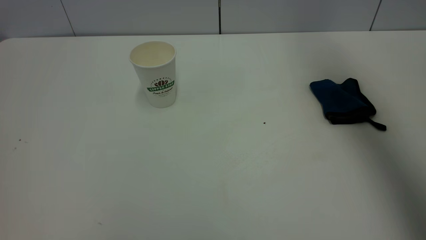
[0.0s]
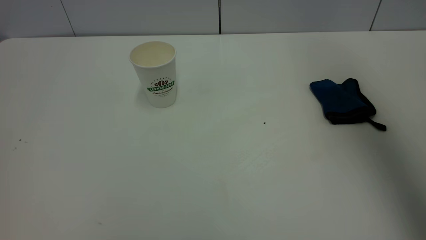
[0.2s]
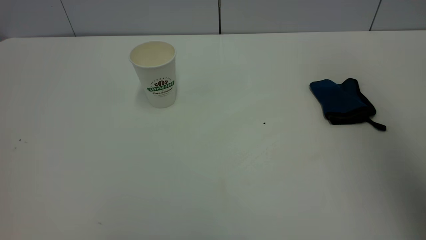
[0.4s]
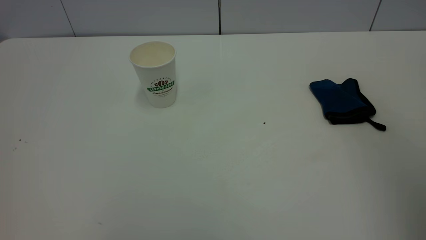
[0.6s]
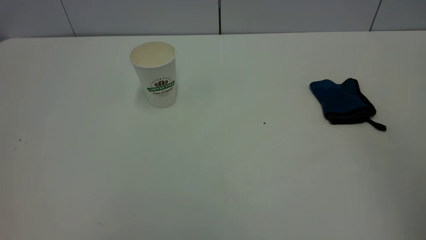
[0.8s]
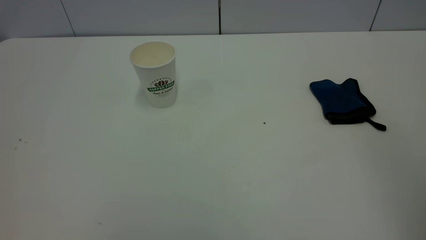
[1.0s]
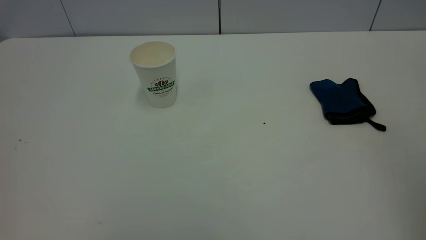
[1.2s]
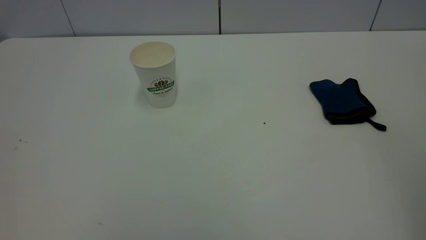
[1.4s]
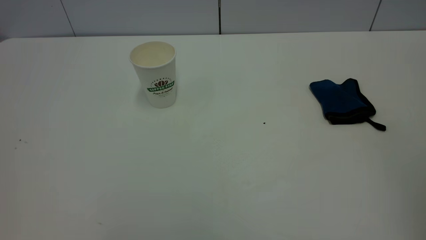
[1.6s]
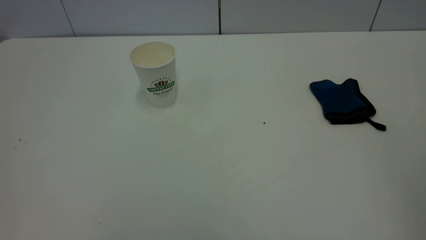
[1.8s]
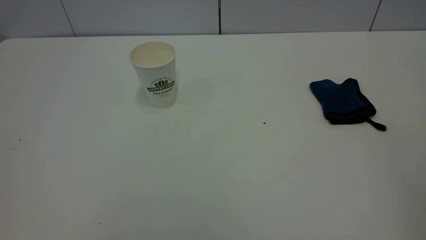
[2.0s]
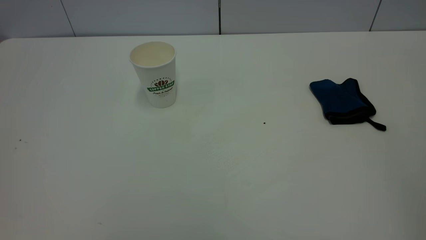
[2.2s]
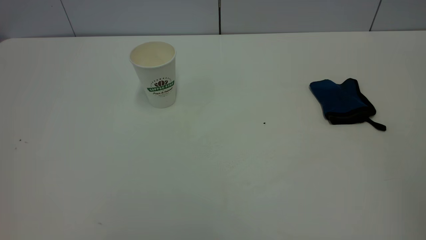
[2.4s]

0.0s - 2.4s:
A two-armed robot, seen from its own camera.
Task of the whole recording: the left gripper pick up the fallen cup and place it upright, the right gripper grasp the blue rag and wipe the tea stain on the table, the right gripper put the blue rag back in its original position.
0.0s - 1.2s: The right gripper heads backward, covering roughly 35 cm.

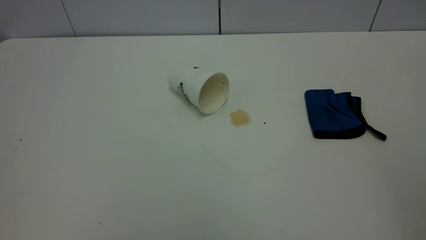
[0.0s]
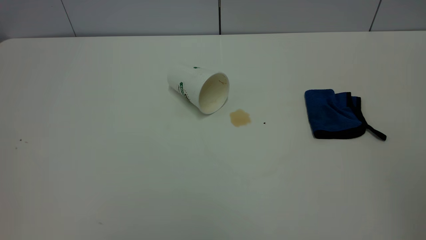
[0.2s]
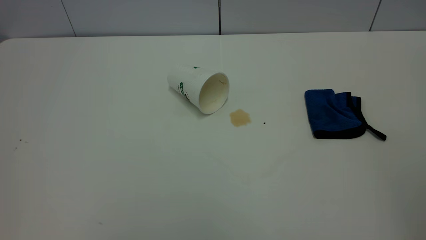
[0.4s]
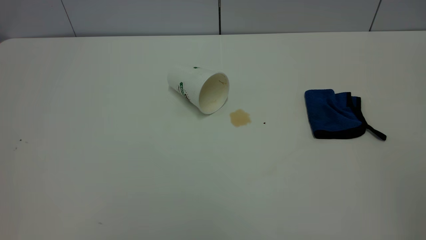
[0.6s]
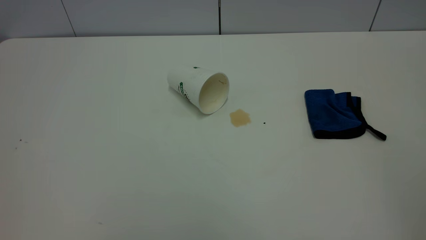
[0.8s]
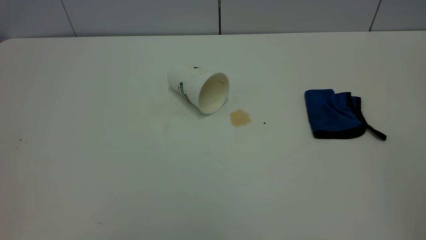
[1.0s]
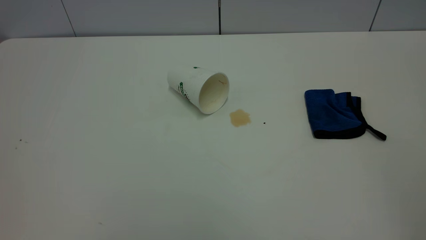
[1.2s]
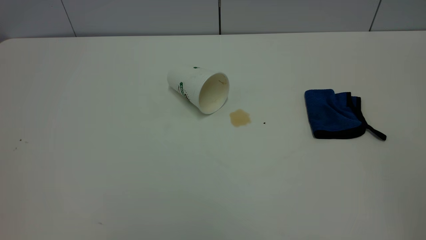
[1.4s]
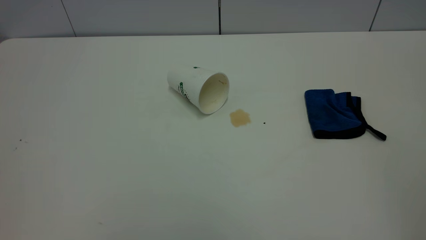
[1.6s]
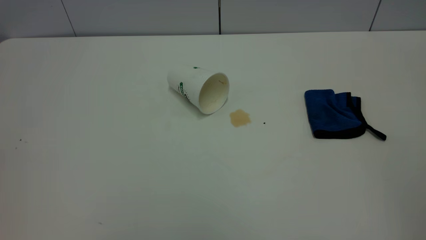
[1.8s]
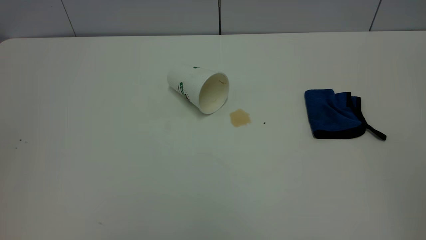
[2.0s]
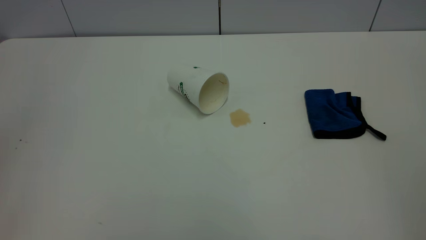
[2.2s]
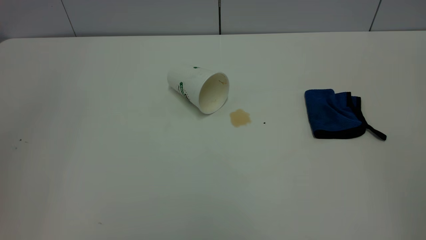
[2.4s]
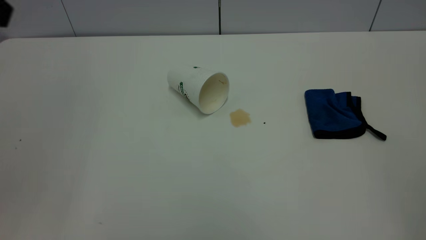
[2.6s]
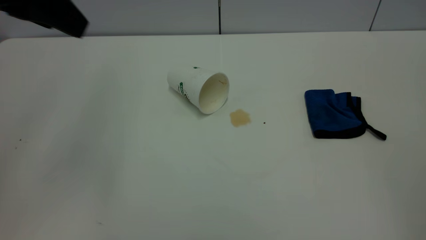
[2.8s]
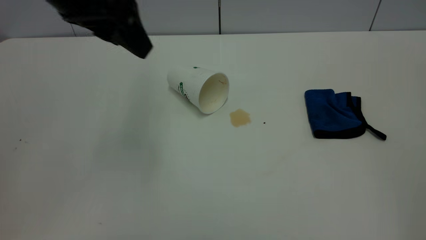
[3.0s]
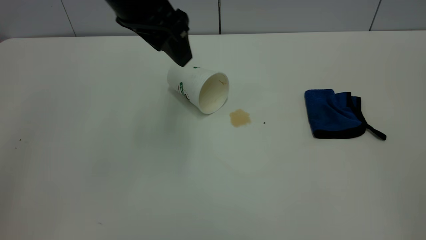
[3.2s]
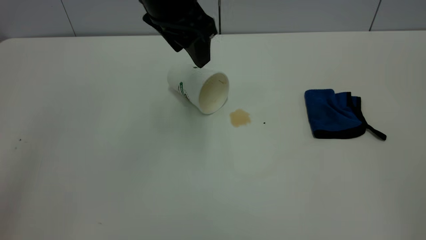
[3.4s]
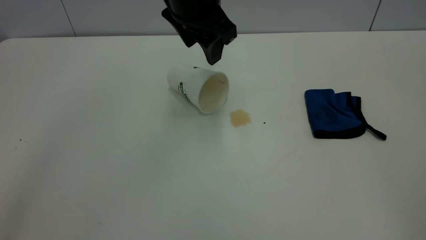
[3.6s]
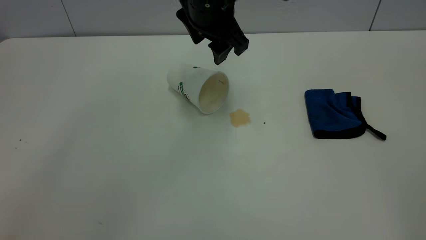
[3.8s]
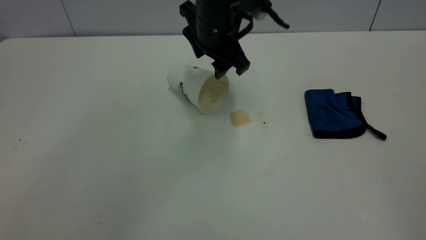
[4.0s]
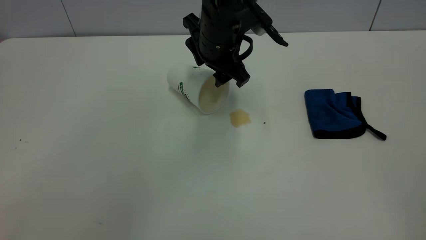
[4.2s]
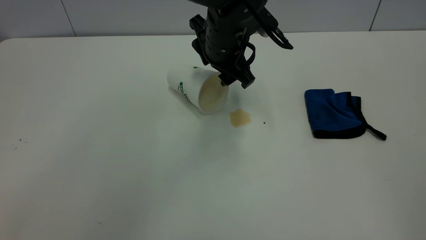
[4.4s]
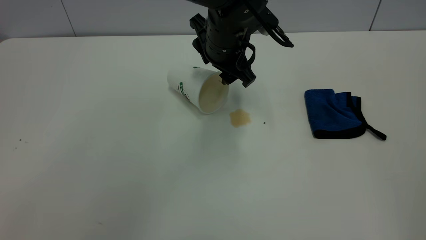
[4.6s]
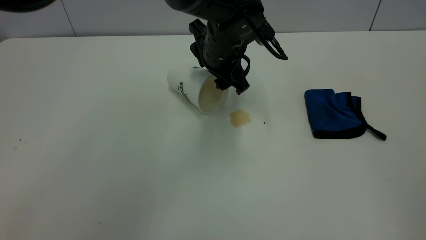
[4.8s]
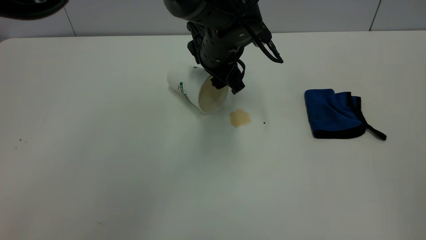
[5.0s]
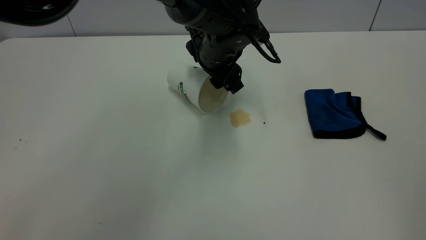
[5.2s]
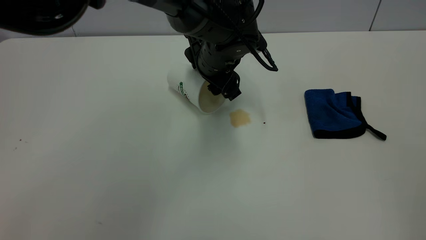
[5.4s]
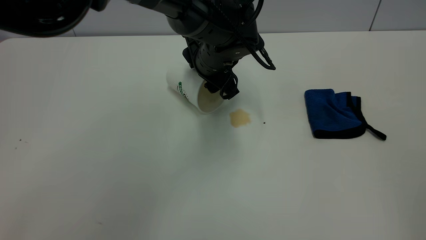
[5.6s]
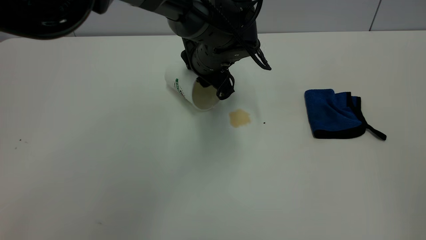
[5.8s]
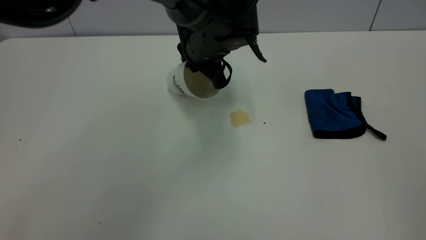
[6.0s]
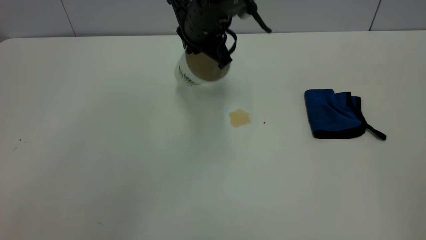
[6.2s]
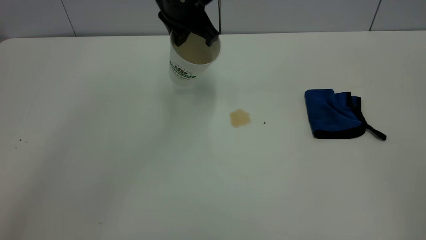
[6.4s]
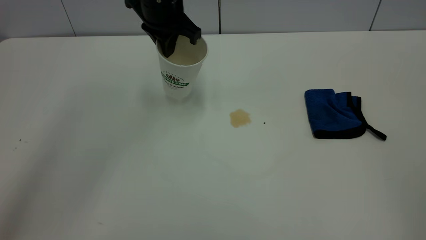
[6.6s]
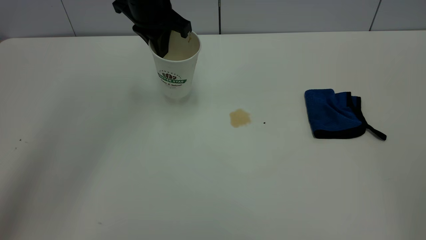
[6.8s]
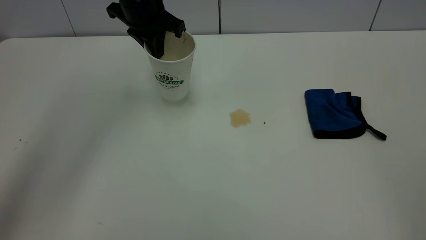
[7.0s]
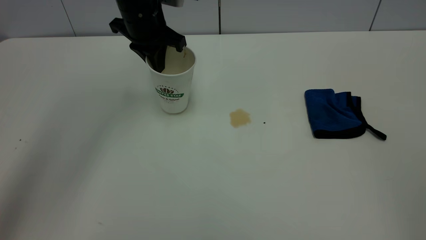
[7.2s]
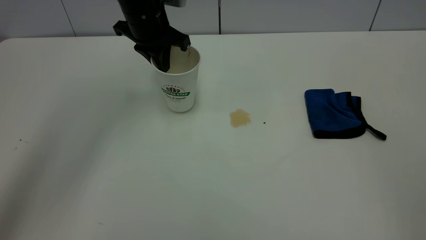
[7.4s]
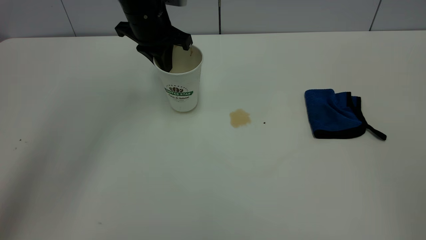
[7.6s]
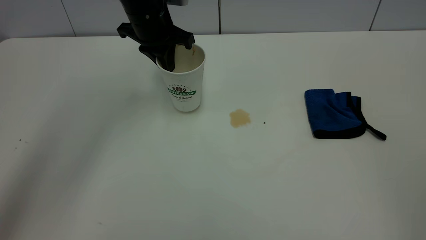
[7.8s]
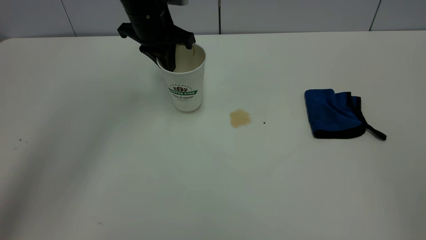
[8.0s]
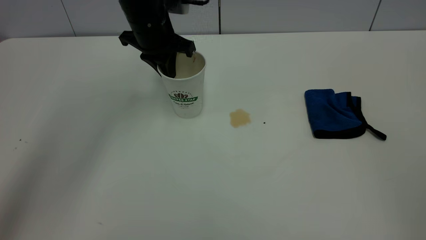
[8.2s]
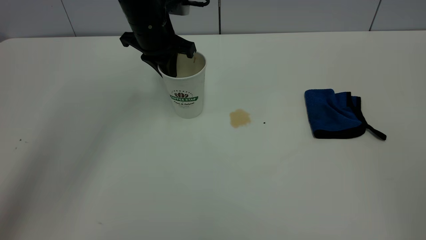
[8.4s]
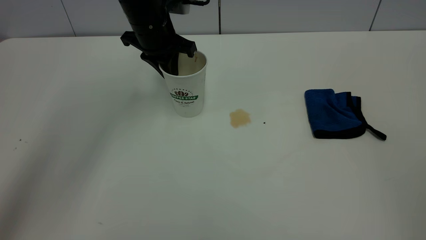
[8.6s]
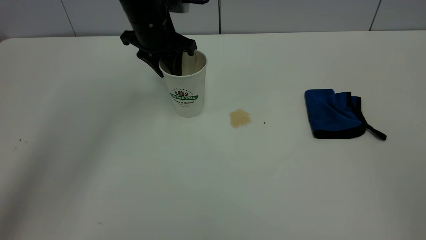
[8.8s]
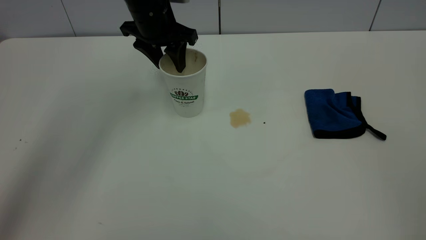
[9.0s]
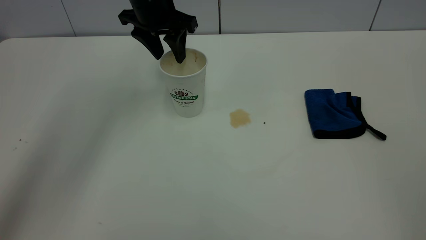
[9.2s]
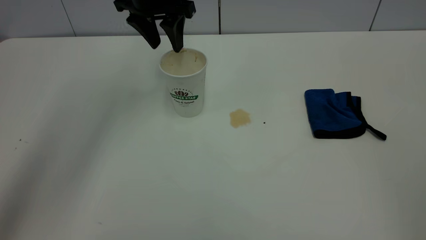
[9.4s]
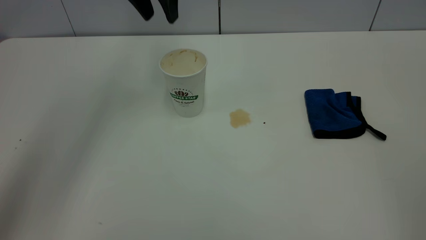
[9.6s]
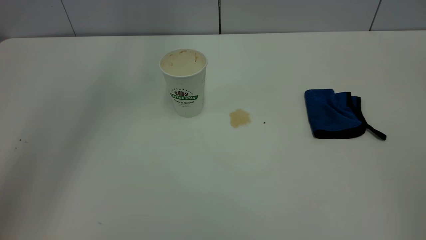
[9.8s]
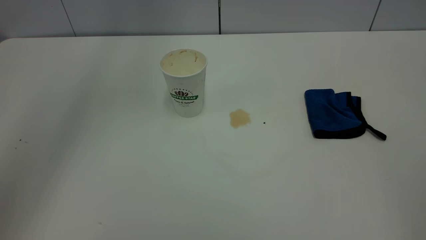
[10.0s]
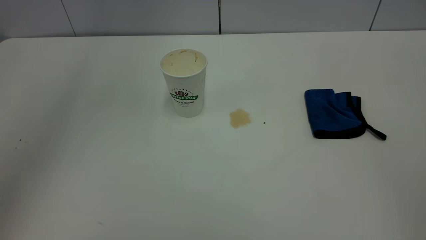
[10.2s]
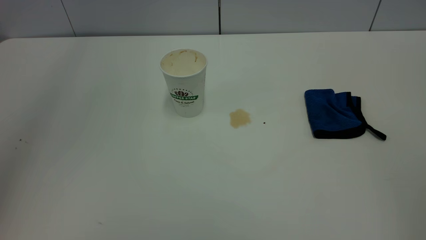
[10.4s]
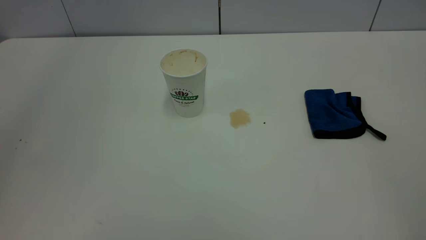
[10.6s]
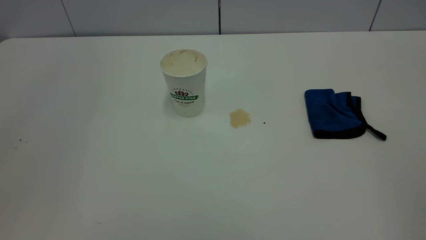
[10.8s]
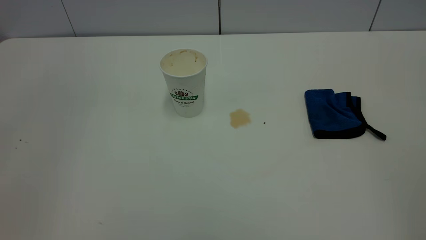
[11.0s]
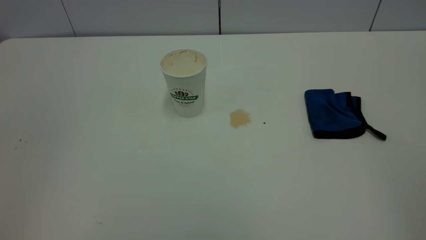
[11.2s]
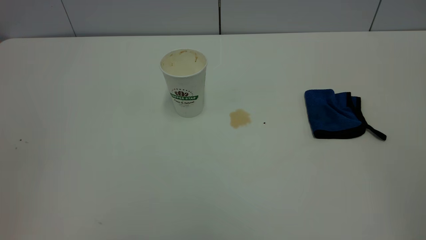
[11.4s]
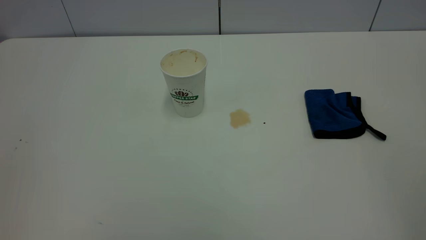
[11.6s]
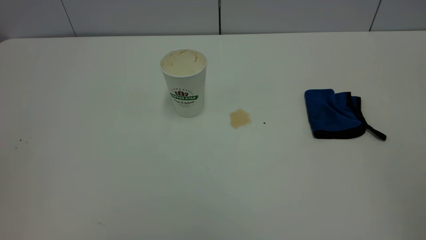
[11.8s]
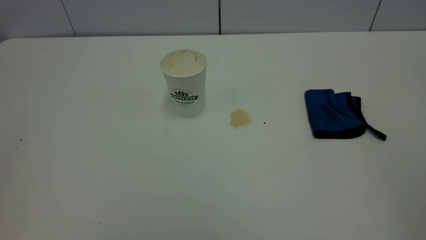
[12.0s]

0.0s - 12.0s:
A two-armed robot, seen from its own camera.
Task of the whole recording: the left gripper pick up the fallen cup and place it upright, the right gripper grasp the blue rag and wipe the tea stain on the table, the right gripper put the blue rag back in its original position.
Step, 0.0s - 9.4s: Stand the paper cup upright.
0.0s - 1.6s: The two grippers keep their place.
1.6s - 3.0s: The left gripper shifts about 35 cm forward and to the right.
3.0s - 4.4s: The left gripper shifts about 25 cm to the right, downward and forward.
4.4s - 6.0s: The left gripper closes its fingers.
6.0s - 7.6s: The left gripper moves to the left and forward, about 15 cm.
7.6s - 9.0s: The left gripper opens its fingers.
9.0s - 10.4s: The left gripper goes approximately 40 cm upward and backward.

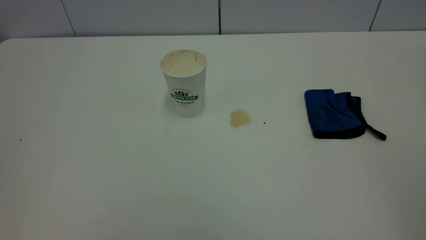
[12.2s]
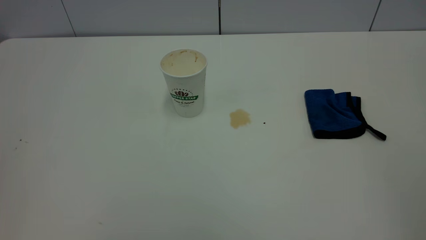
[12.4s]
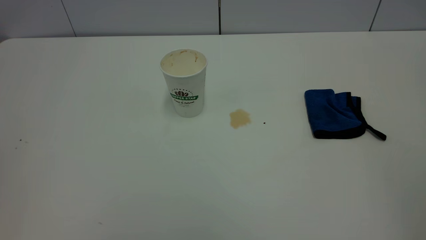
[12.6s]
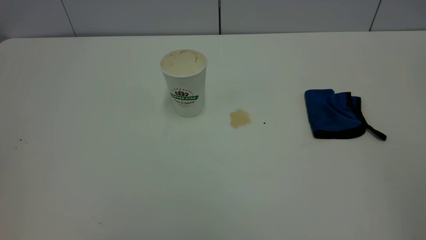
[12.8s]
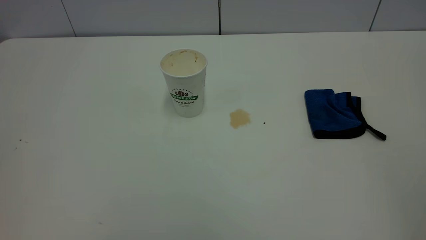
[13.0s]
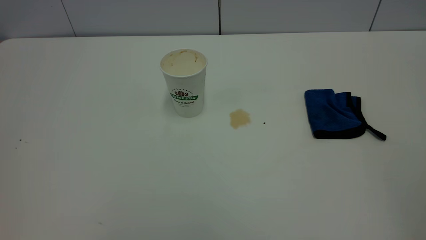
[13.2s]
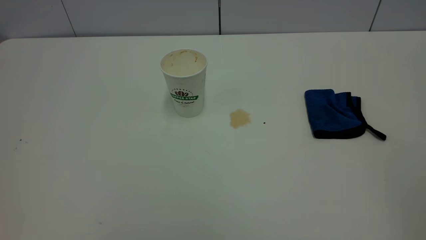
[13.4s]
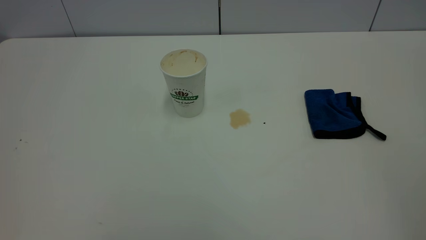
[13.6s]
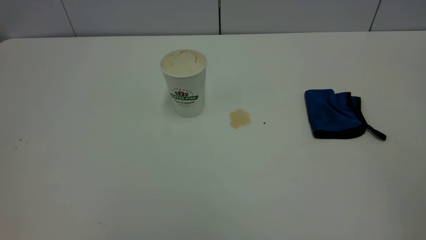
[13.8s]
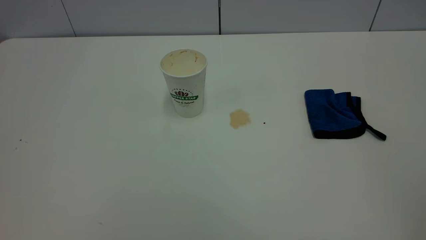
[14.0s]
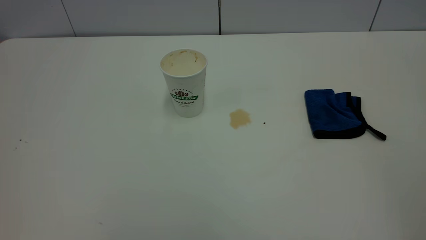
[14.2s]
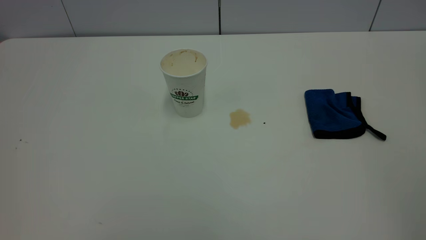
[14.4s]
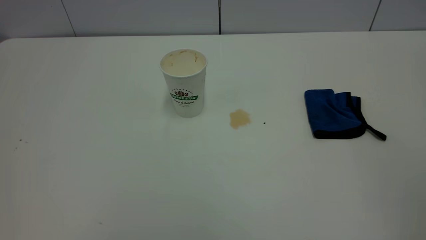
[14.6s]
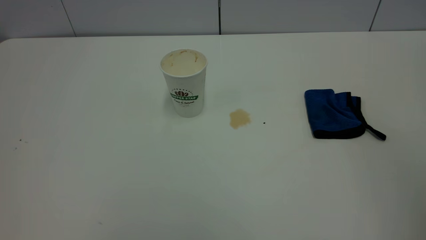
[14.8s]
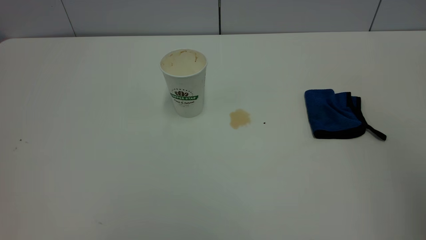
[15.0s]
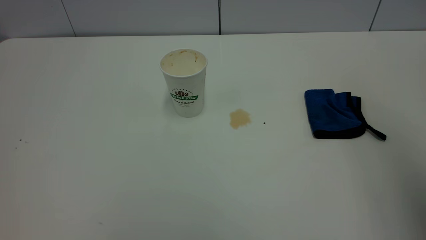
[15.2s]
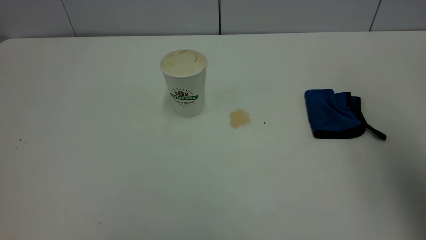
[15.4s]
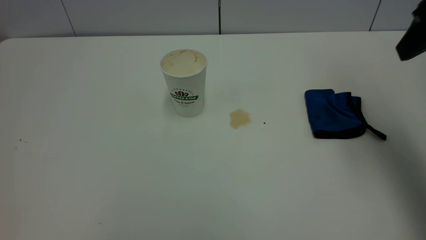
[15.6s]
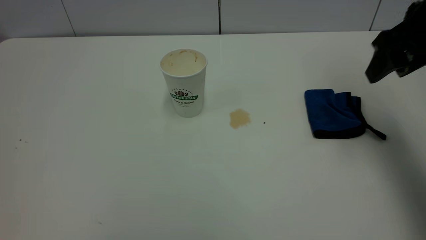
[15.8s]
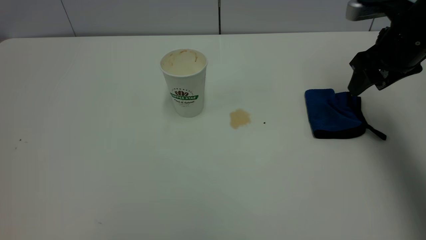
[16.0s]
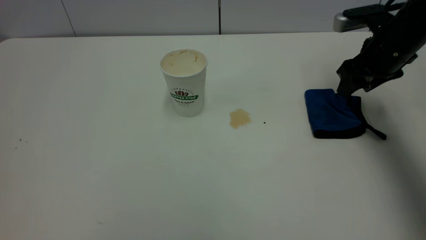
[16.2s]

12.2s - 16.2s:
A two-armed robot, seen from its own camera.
Task of the whole recording: the left gripper pick up the fallen cup and place it upright, the right gripper grasp the blue rag and wipe the tea stain on the table, the right gripper put the blue rag back in its original position.
14.8s - 16.2s: The right gripper moves forward and downward, about 40 cm.
